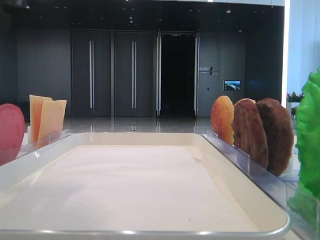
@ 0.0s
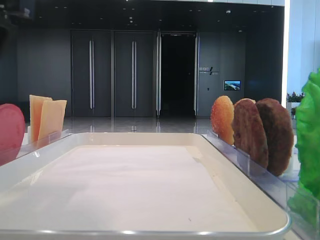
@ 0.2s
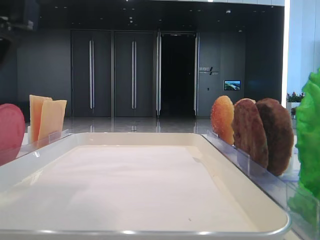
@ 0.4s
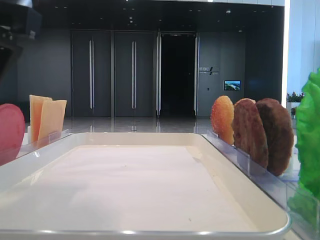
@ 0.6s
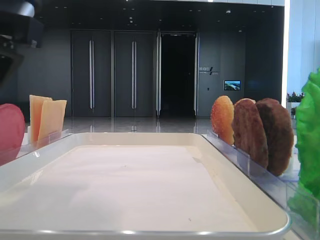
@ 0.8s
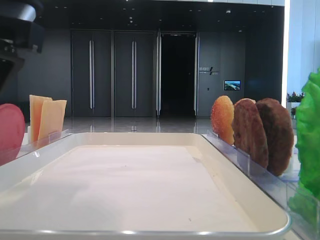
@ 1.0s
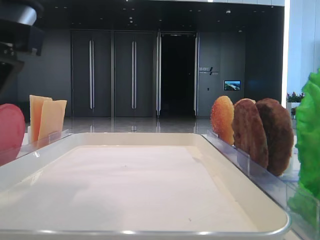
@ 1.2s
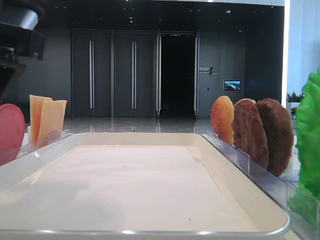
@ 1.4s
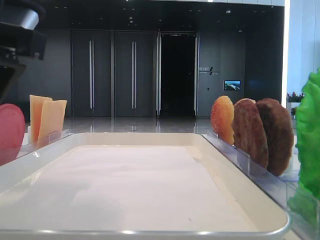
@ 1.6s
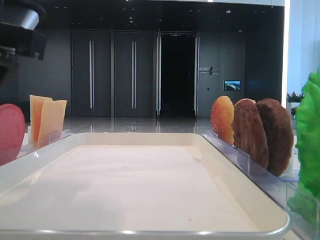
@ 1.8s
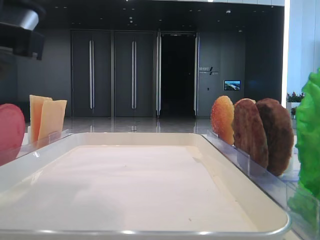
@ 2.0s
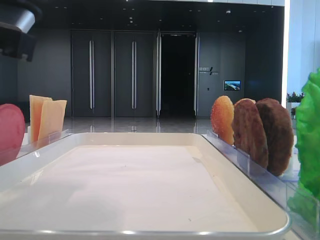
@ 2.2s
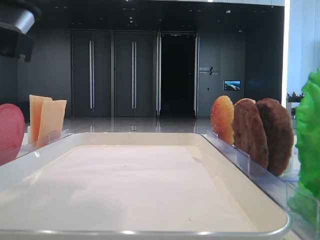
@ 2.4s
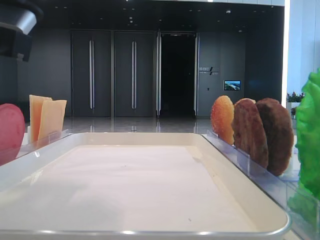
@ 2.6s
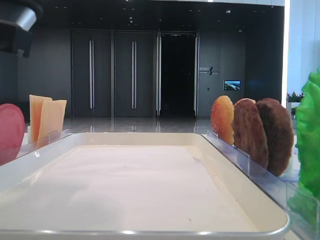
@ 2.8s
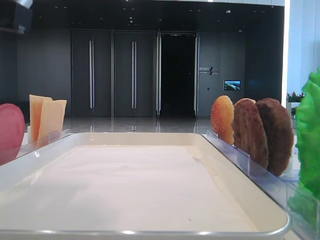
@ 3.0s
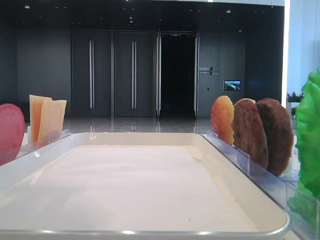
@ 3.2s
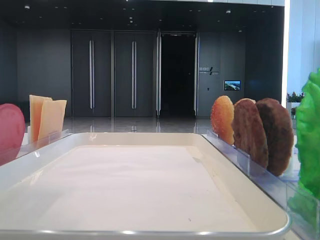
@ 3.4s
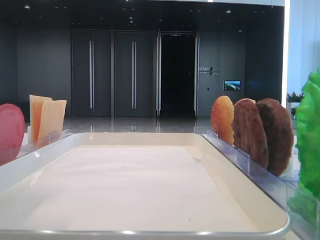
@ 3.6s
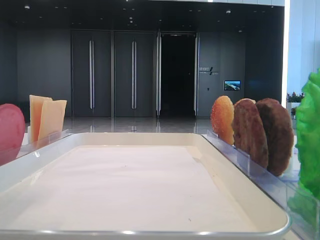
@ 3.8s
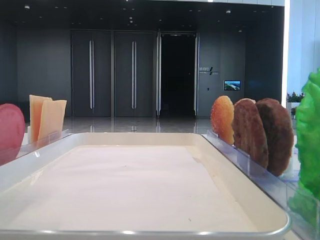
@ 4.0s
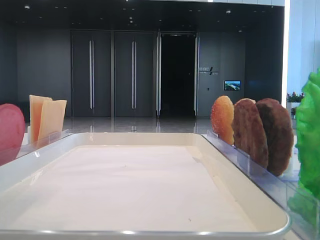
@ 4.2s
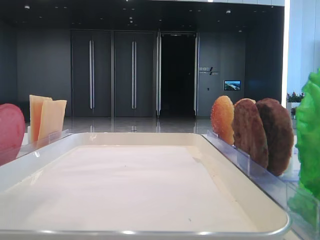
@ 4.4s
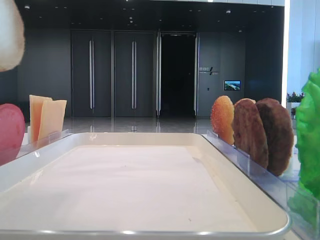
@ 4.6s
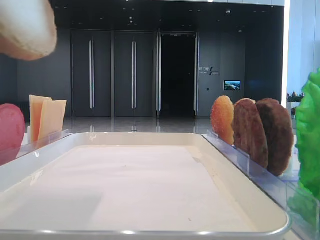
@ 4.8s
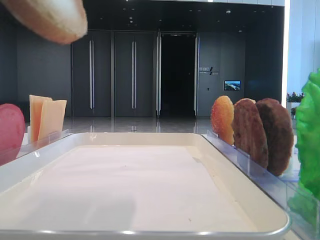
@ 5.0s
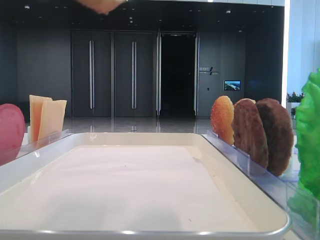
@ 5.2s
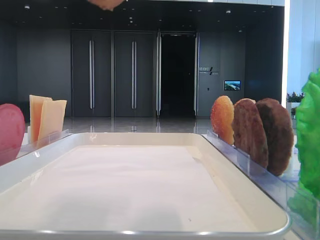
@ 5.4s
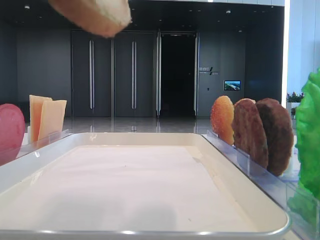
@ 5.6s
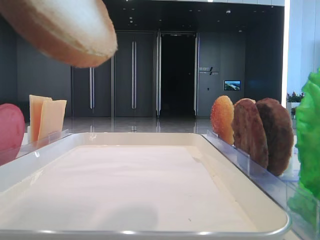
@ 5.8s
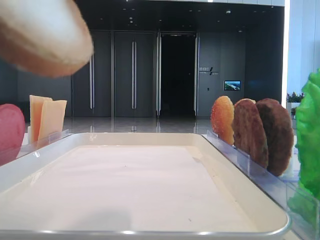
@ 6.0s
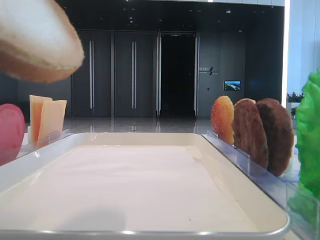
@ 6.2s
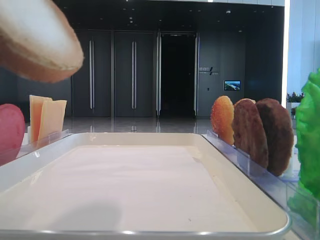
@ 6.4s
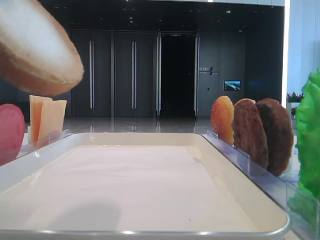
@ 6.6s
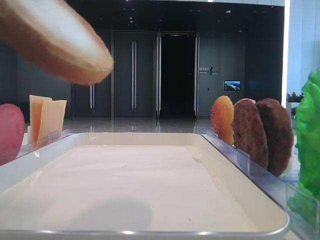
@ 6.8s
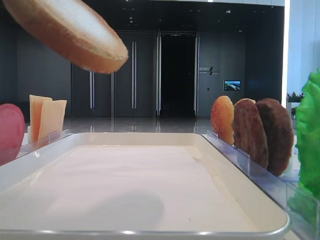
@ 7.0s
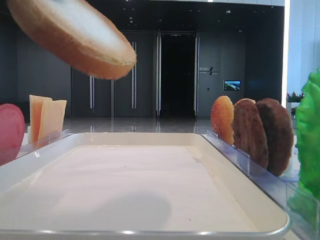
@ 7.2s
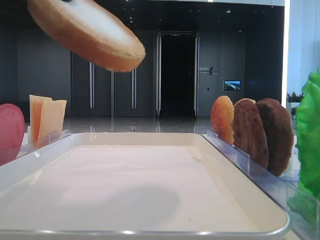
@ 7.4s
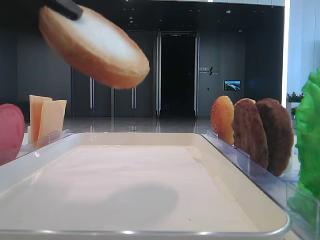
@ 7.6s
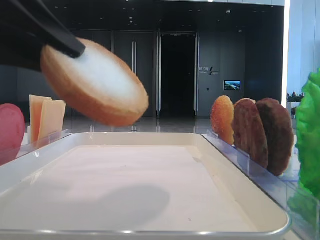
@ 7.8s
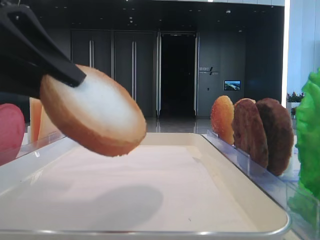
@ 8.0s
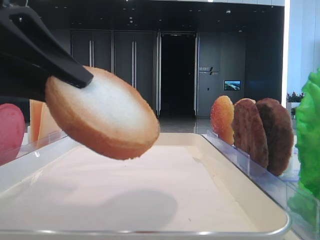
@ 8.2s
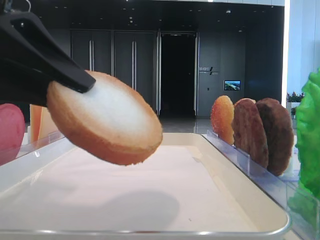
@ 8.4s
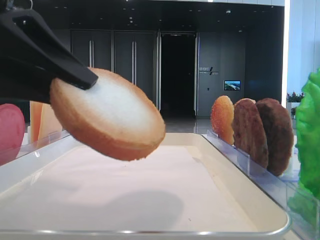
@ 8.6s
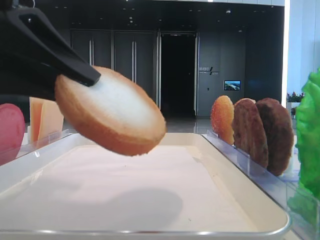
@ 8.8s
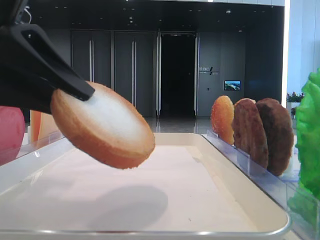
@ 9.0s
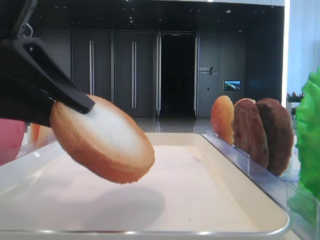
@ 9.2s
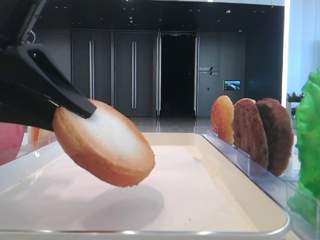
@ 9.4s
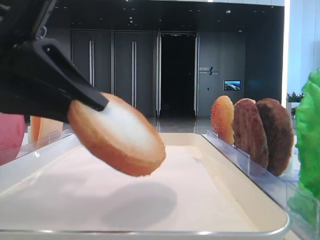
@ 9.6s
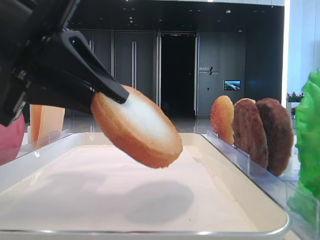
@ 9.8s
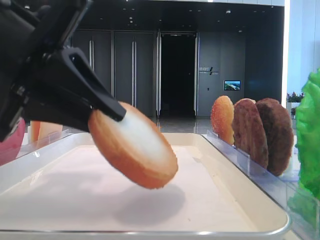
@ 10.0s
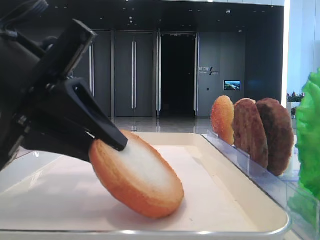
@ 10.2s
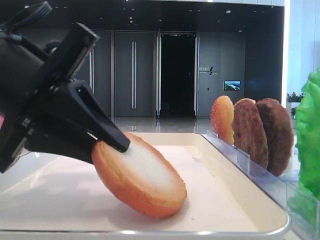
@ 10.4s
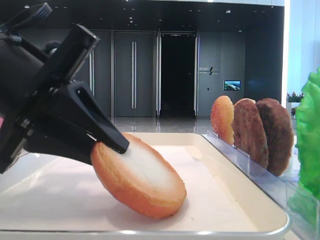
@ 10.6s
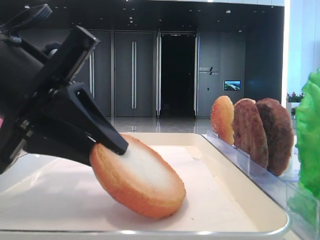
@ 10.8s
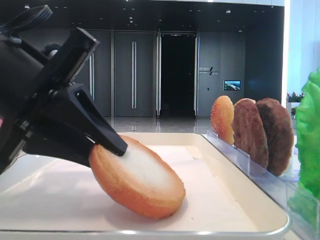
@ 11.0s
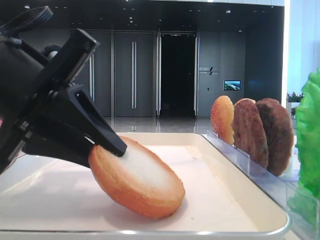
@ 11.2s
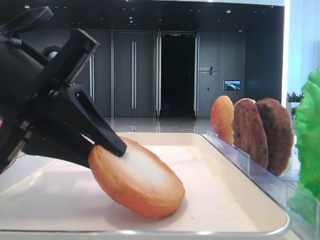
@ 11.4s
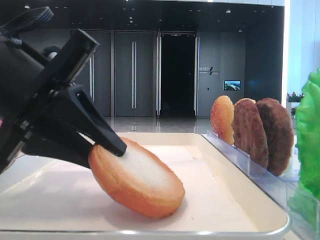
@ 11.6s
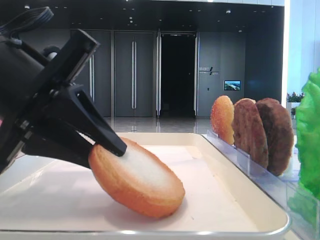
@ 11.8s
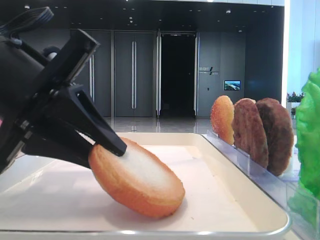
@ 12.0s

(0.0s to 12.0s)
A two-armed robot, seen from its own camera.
0.0s - 1.6s: The grippers make only small movements.
1.6s - 3.0s: The left gripper closes up.
3.0s - 4.4s: The left gripper heads upward, covering some 10 cm.
4.4s - 6.0s: The left gripper changes place by roughly 5 cm.
6.0s - 7.6s: The left gripper is displaced forward by roughly 5 cm.
7.6s - 9.0s: The left gripper moves approximately 5 cm.
9.0s - 10.4s: The left gripper ends up approximately 5 cm from where it was.
10.4s - 12.0s: Both grippers stay about where they are.

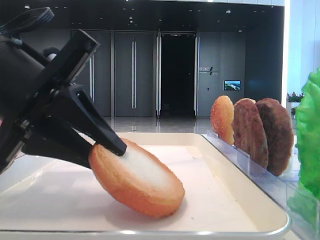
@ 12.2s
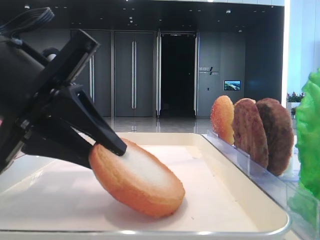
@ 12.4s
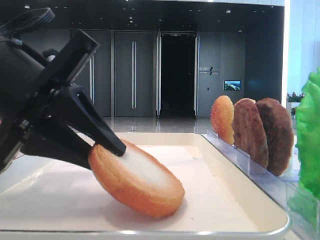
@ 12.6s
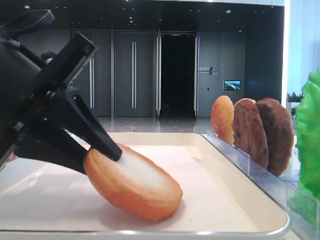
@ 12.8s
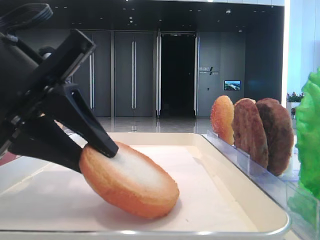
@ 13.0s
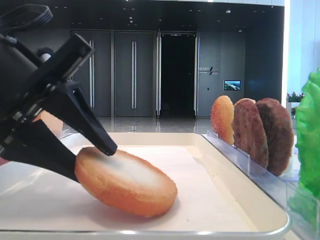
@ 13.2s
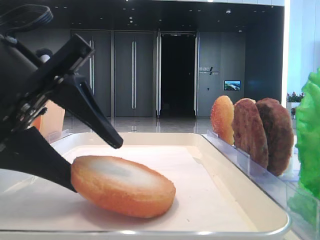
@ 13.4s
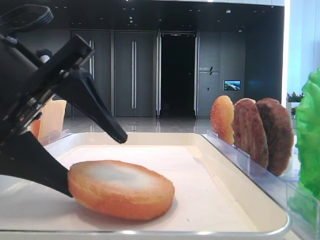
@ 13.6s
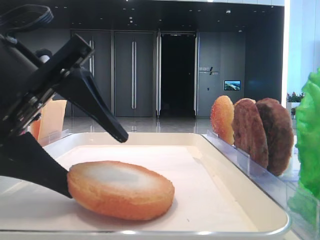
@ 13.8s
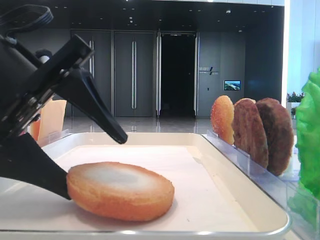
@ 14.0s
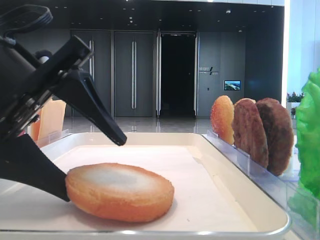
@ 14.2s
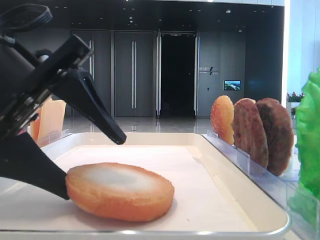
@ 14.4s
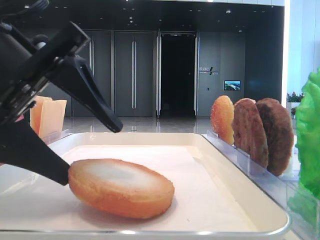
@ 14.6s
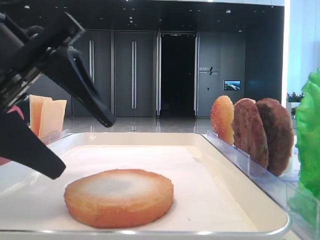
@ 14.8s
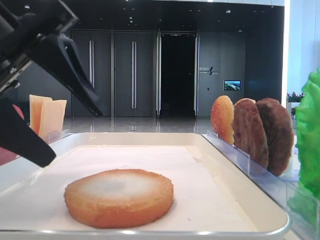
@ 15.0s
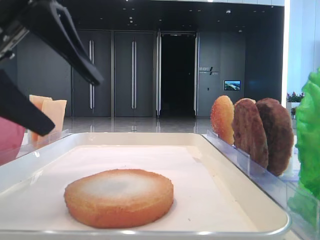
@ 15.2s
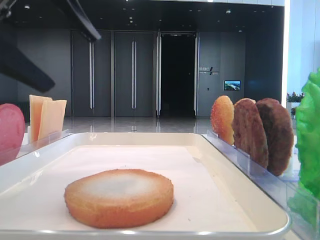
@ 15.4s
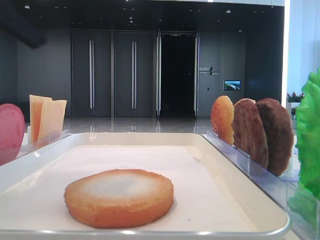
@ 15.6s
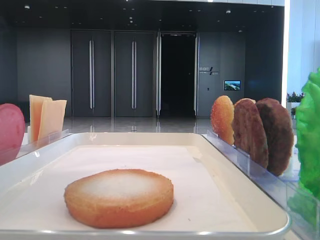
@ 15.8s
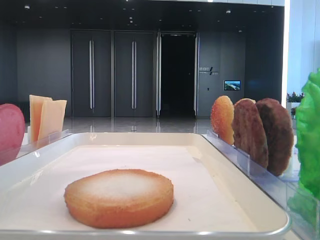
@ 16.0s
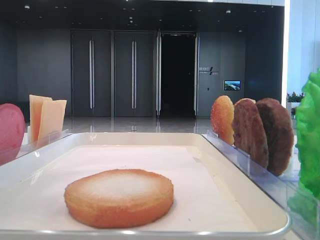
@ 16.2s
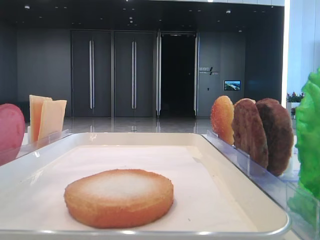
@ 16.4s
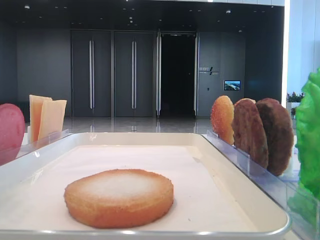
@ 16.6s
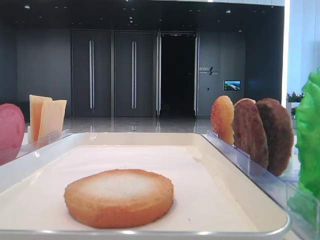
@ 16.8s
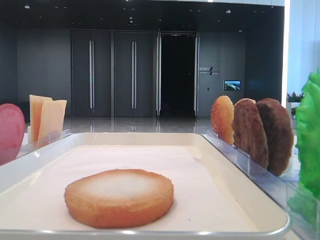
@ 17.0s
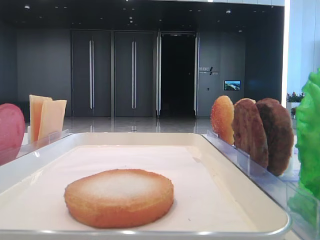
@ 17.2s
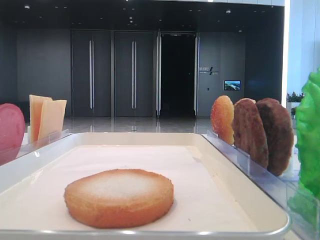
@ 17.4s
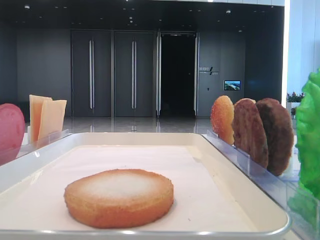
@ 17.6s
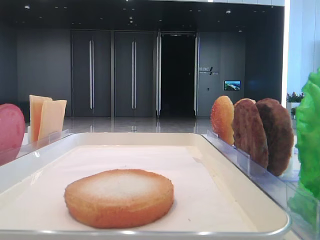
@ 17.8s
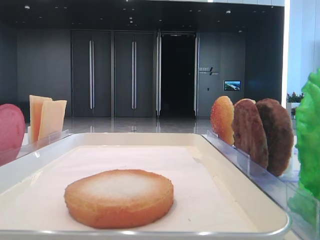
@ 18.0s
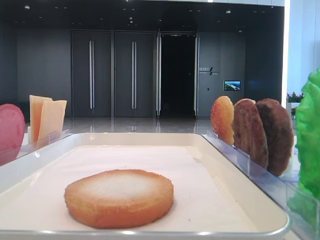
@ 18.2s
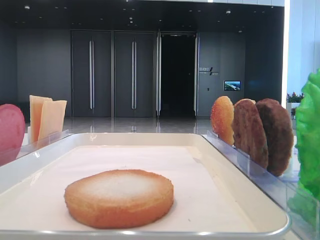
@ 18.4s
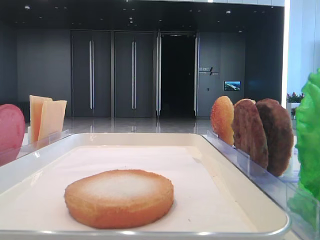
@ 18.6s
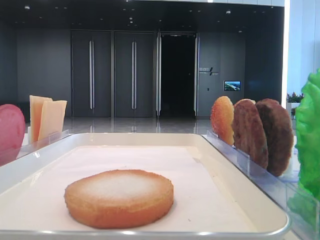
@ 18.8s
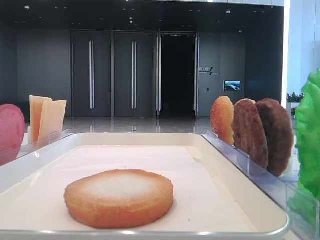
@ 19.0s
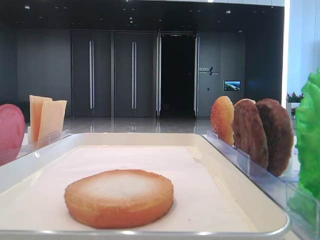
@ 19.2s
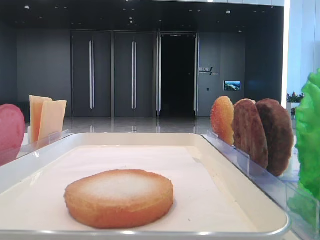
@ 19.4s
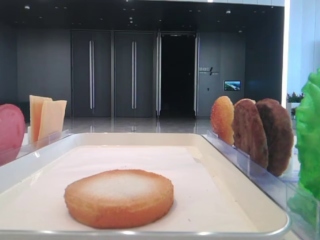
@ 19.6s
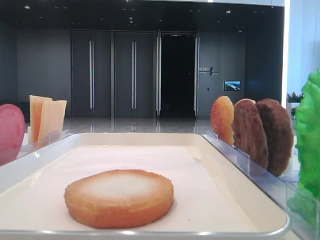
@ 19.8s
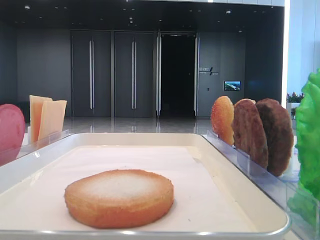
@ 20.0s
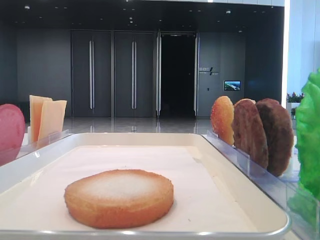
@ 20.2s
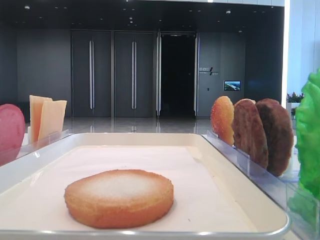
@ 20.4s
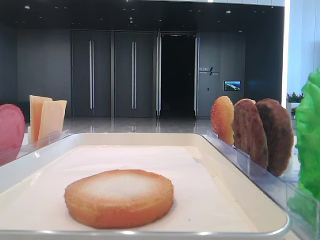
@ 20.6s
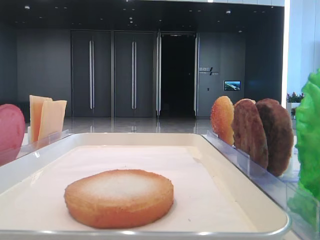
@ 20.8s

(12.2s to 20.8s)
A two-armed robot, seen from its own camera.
Step, 12.2s - 14.6s: Place the bread on the tray with the left hand.
12.2s - 13.6s: The left gripper opens.
13.6s - 15.0s: The grippers move only a little.
15.0s - 16.6s: The left gripper moves upward and to the left, about 15 cm.

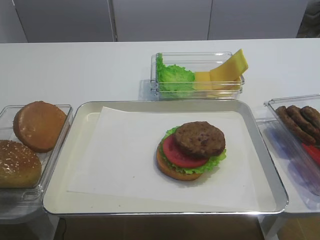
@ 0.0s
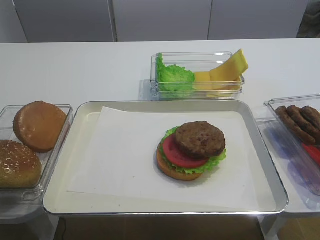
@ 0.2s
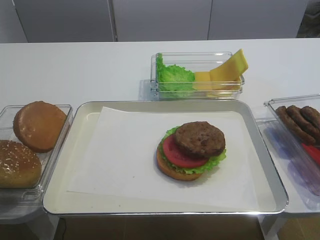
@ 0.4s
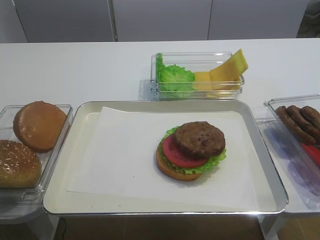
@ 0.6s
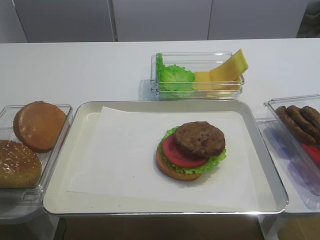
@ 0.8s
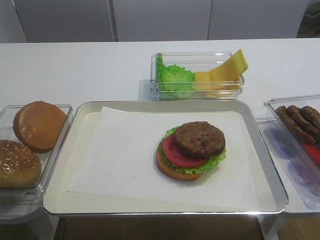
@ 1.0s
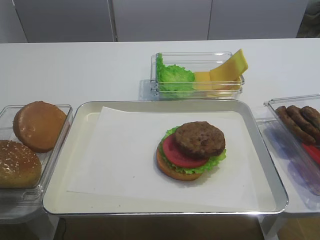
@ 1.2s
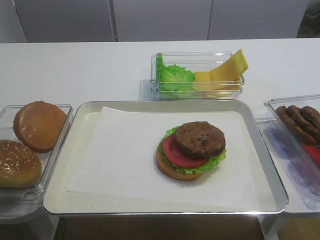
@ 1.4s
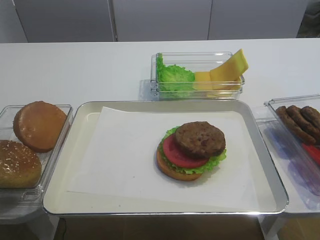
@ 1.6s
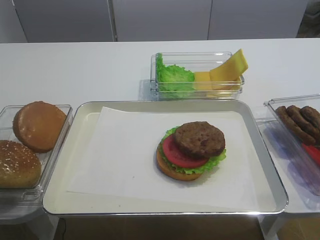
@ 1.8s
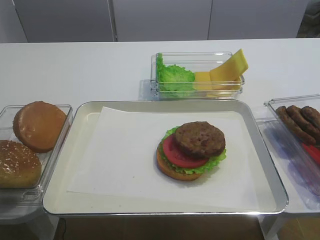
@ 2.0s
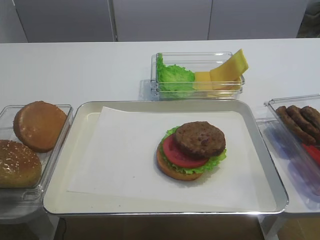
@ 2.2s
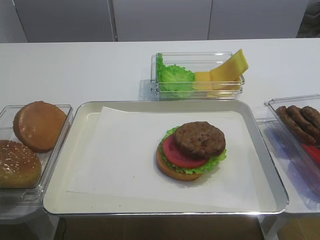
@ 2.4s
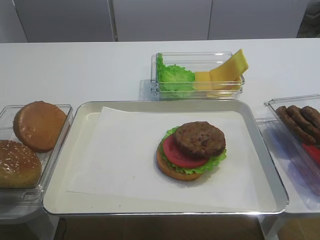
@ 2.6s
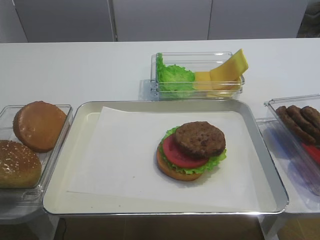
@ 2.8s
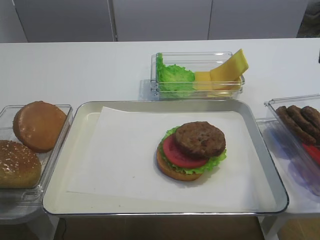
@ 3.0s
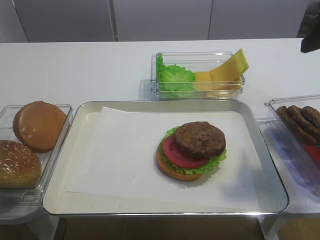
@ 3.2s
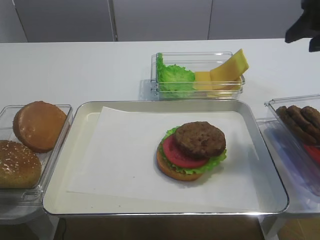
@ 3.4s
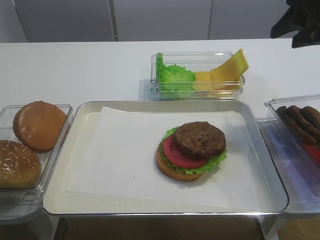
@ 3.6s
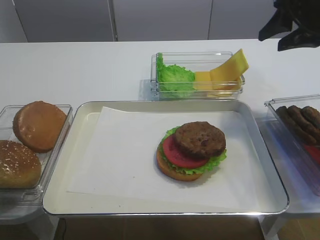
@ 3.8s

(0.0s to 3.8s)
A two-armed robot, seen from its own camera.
2.6s - 3.8s: The right gripper heads forward, covering approximately 30 cm.
